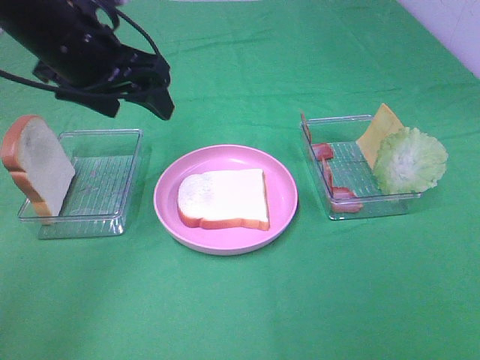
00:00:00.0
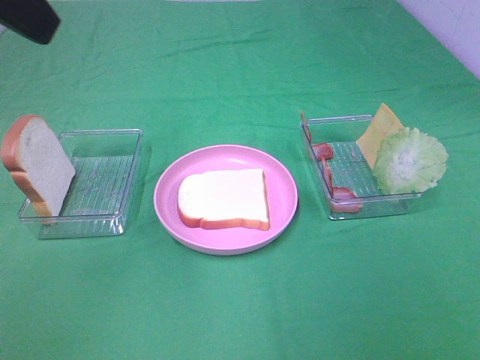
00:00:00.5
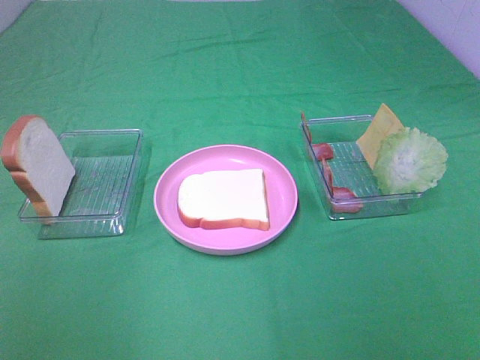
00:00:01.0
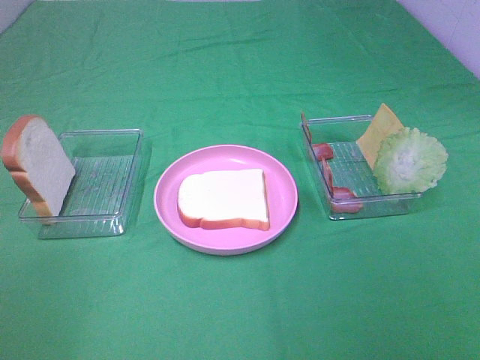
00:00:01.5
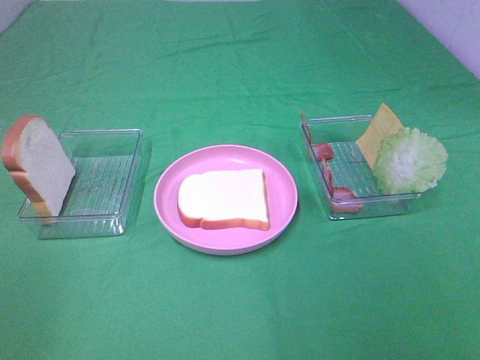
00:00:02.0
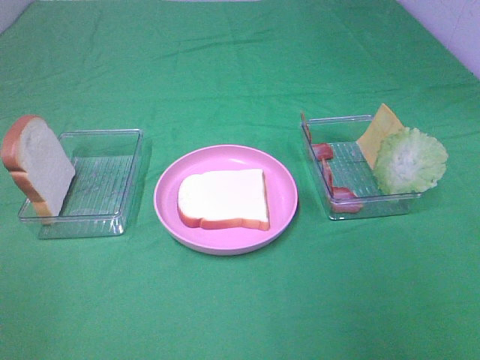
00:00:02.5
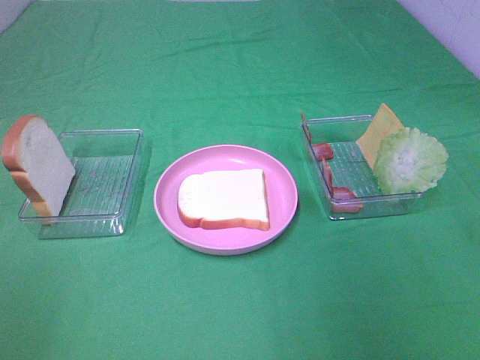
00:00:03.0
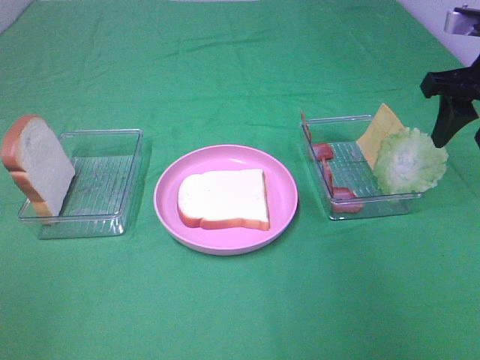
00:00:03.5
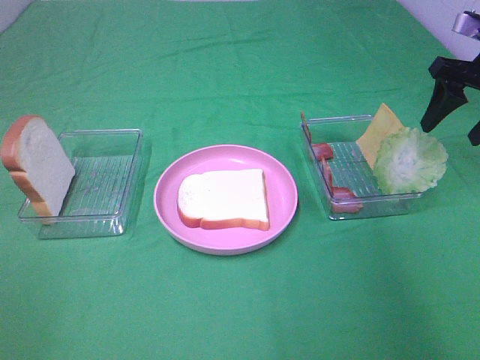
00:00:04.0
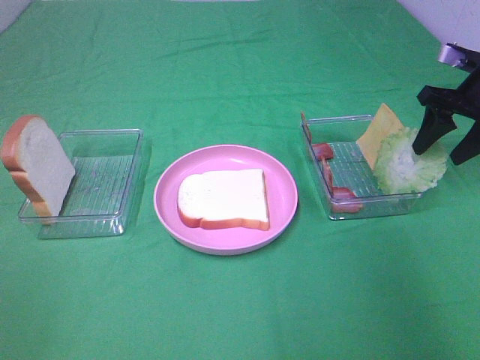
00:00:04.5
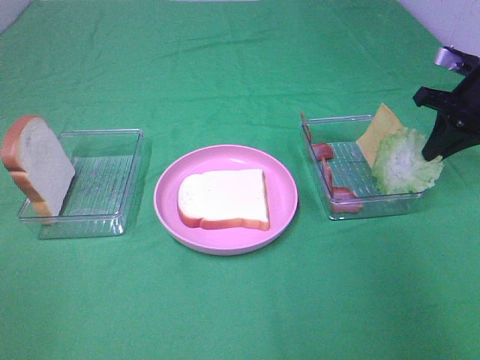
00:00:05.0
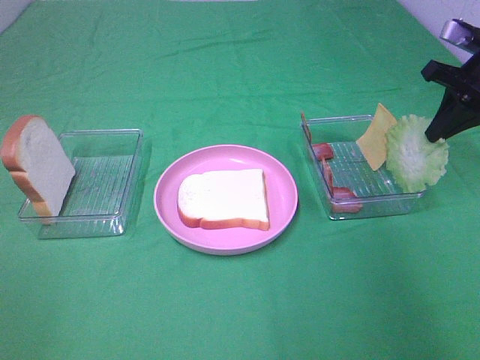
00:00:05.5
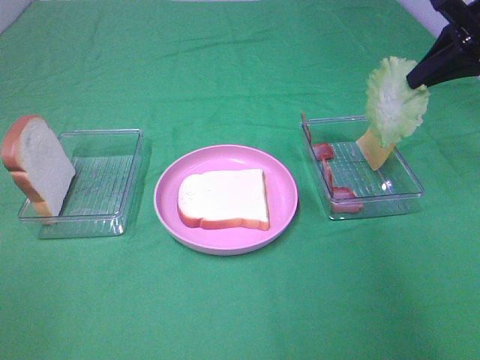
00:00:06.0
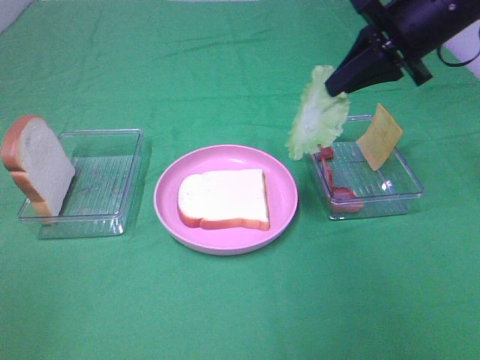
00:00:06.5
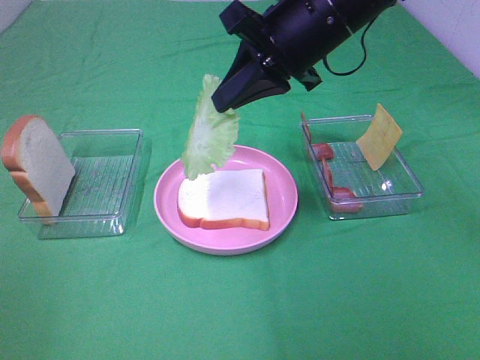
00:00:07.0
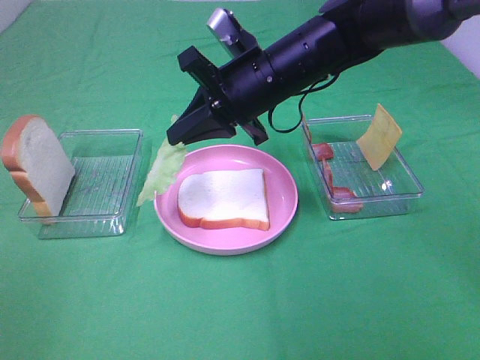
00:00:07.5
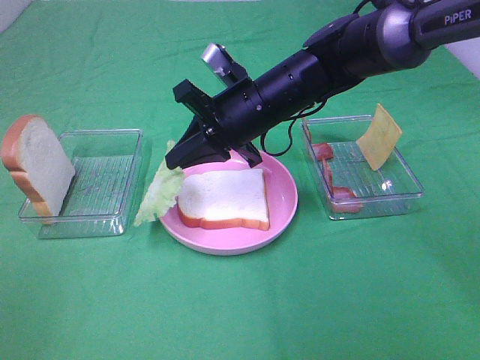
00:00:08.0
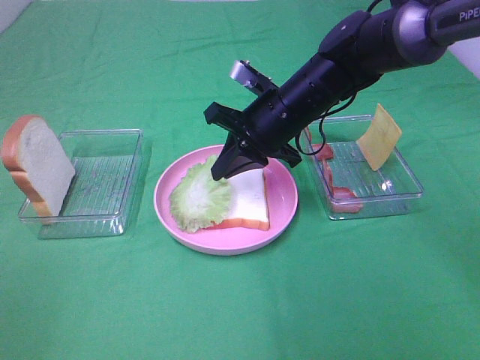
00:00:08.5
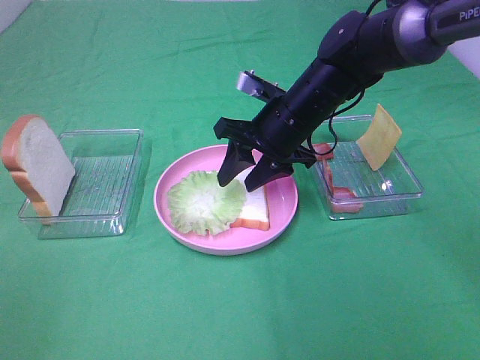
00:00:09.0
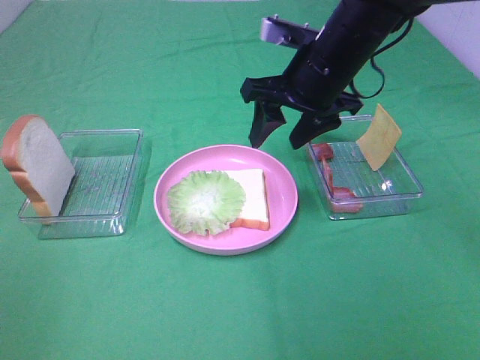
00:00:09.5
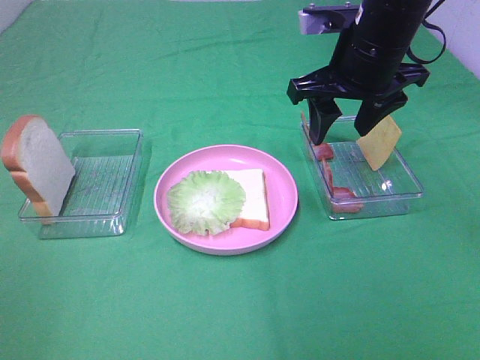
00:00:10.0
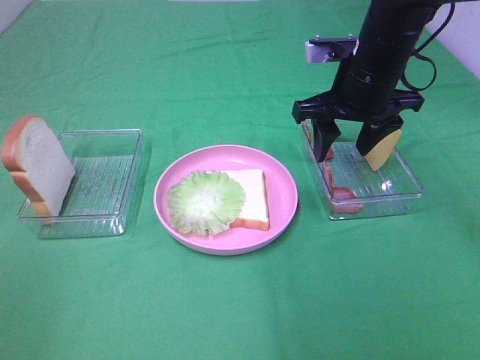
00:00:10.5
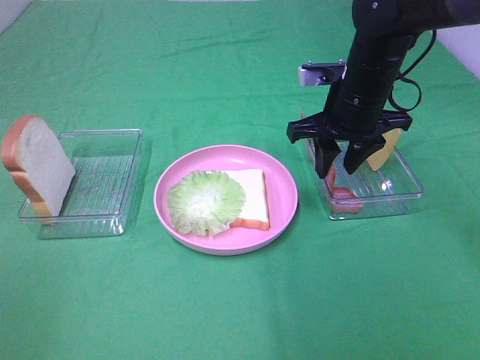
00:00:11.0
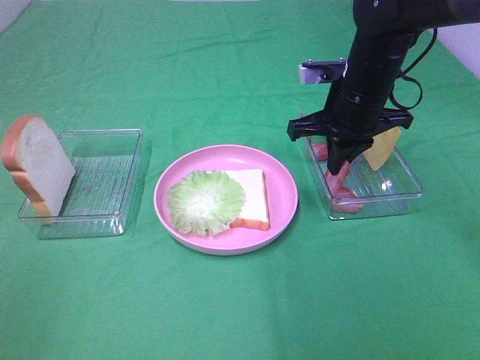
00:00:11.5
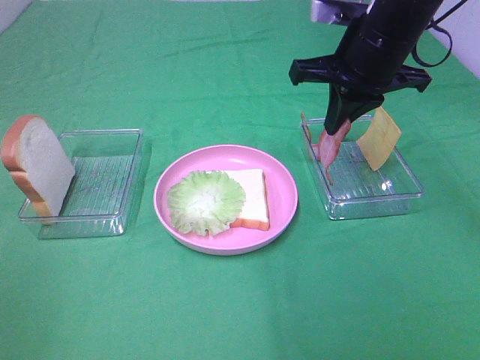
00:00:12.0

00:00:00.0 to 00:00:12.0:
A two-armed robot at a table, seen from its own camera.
Task of the whole recording: Make sandwiches.
Step, 00:00:00.0 to 00:00:05.0: Right hand:grab the lettuce slice.
Step, 00:00:05.5 to 00:00:09.0: Right hand:place the lettuce slice on the bread slice.
Step, 00:00:09.5 to 00:00:11.0: Right hand:grab the bacon.
00:00:00.0 to 00:00:02.0: The left gripper travels backward and to the left by roughly 35 cm.
00:00:02.0 to 00:00:04.0: The right gripper heads forward, covering roughly 40 cm.
00:00:04.0 to 00:00:06.0: The right gripper goes some 5 cm upward, and closes.
00:00:06.0 to 00:00:08.0: The right gripper is displaced to the left and downward by approximately 30 cm.
00:00:08.0 to 00:00:10.0: The right gripper goes approximately 15 cm to the right and upward, and opens its fingers.
00:00:10.0 to 00:00:12.0: The right gripper moves about 10 cm downward and comes back, and closes up.

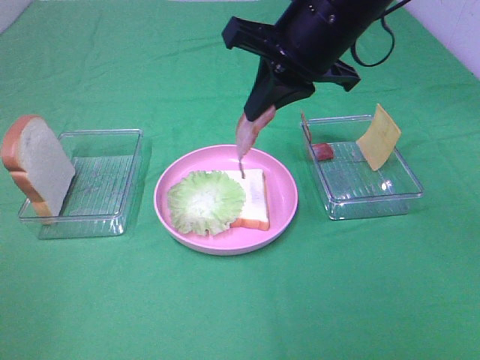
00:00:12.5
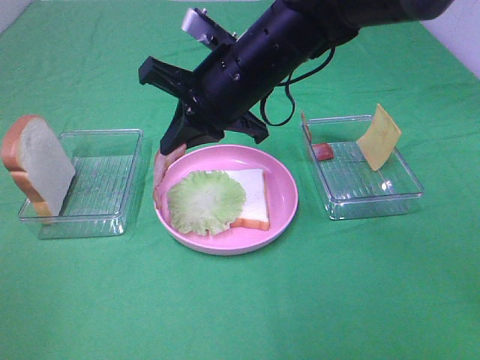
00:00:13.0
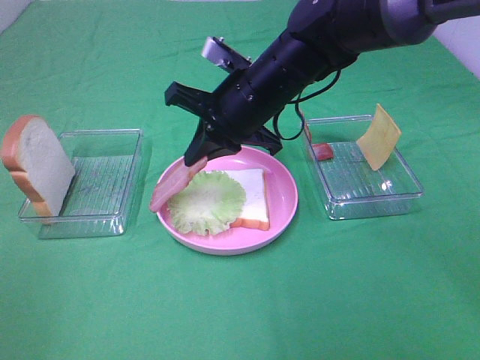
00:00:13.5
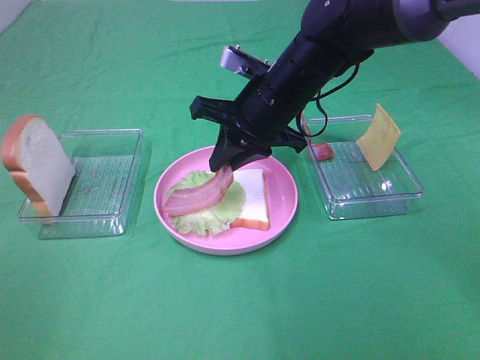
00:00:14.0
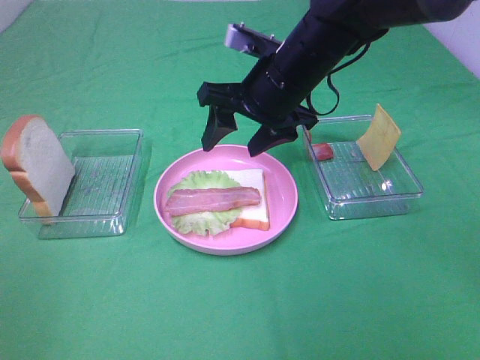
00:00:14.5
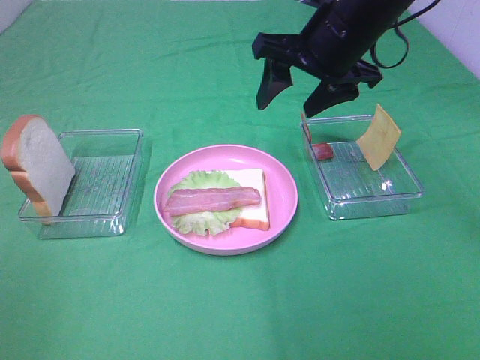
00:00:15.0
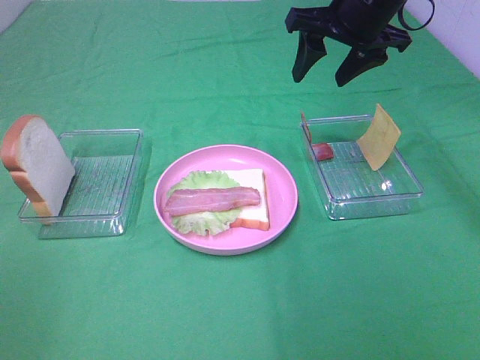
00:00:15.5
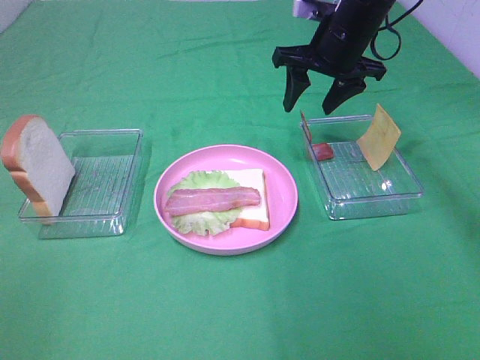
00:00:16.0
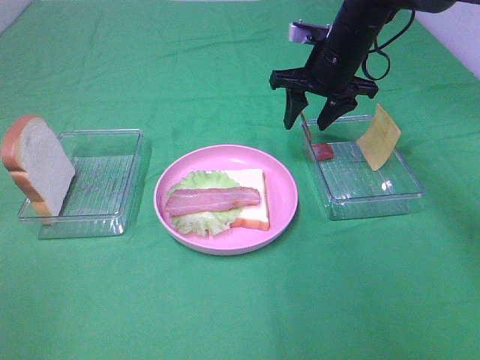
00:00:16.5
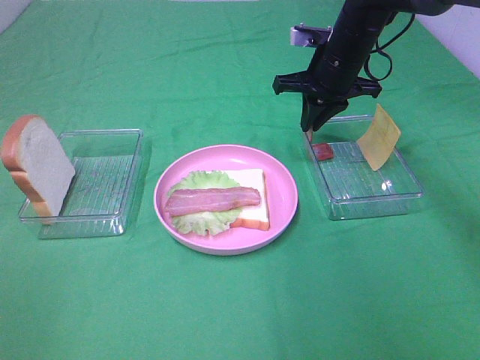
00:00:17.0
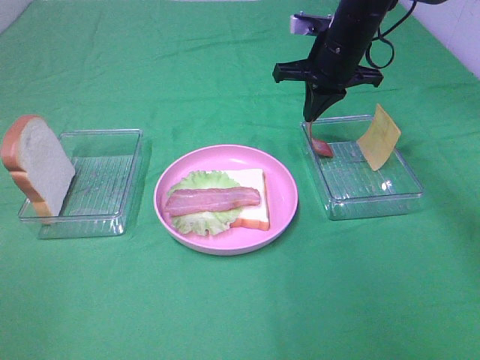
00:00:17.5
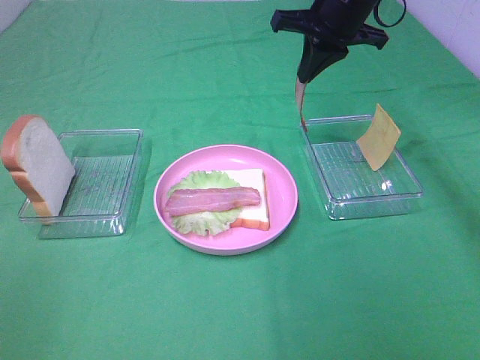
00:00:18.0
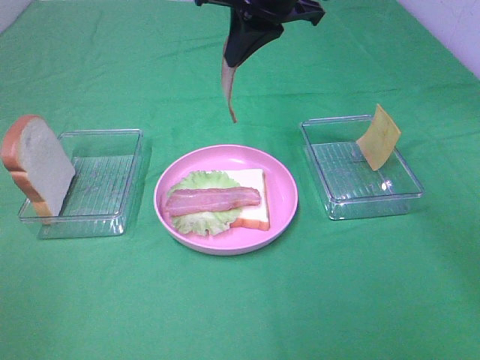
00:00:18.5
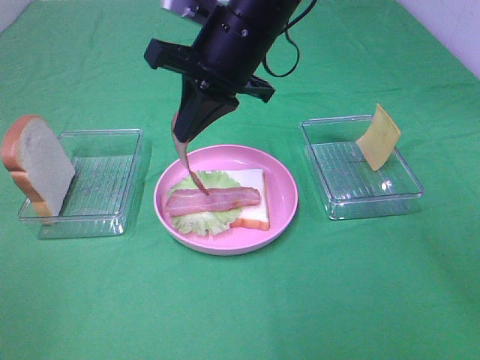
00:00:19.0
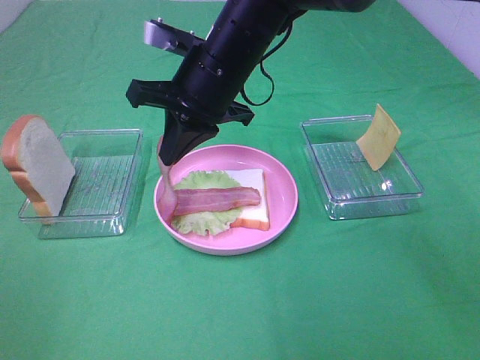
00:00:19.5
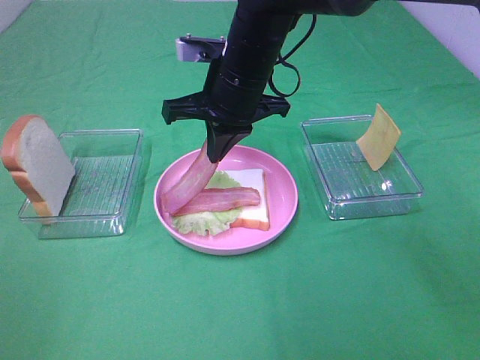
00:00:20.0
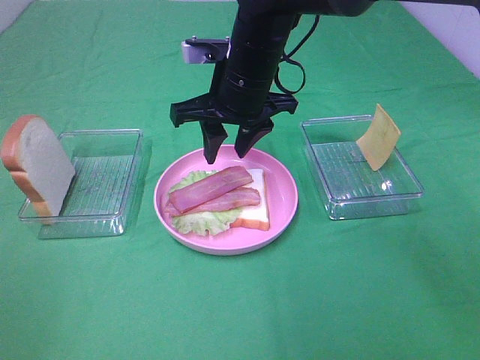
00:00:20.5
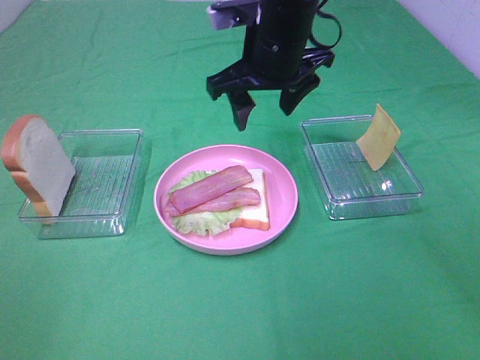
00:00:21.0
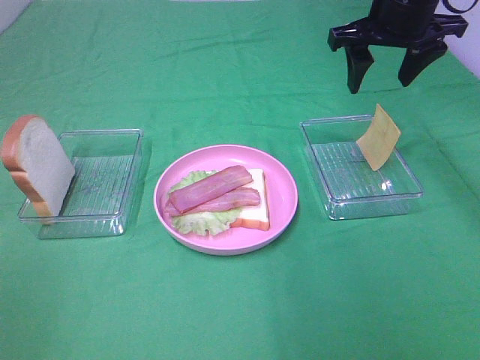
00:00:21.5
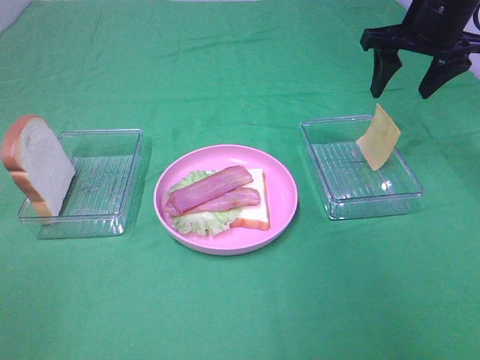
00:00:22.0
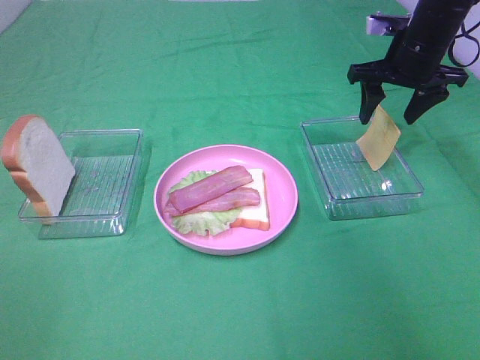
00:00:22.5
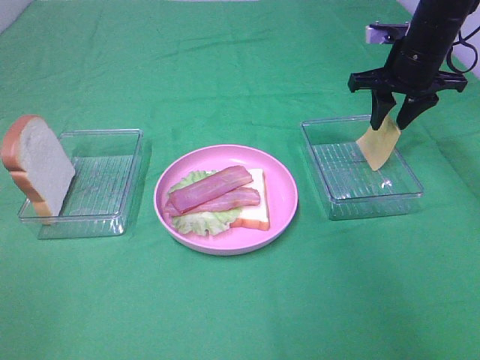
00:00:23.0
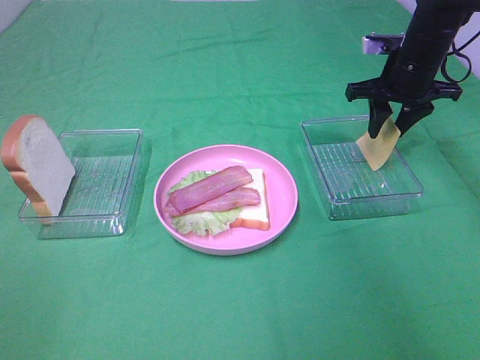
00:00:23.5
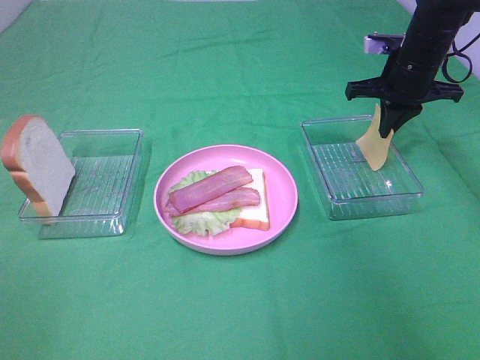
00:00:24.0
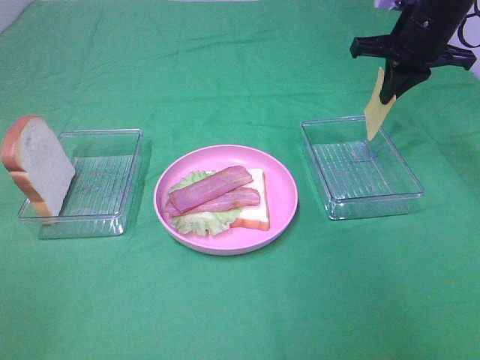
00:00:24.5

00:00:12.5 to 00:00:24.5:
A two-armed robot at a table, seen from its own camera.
Task of the whole recording: Make sandwiches.
Step, 00:00:12.5 to 00:00:14.5: Right hand:place bacon on lettuce slice.
Step, 00:00:15.0 to 00:00:17.0: Right hand:grab the bacon.
Step, 00:00:17.5 to 00:00:20.5: Right hand:place bacon on bacon.
Step, 00:00:21.0 to 00:00:24.0: Right hand:grab the cheese slice.
00:00:12.5 to 00:00:14.5: The right gripper shifts some 5 cm downward, and opens up.
00:00:14.5 to 00:00:16.5: The right gripper moves forward and to the right, approximately 15 cm.
00:00:16.5 to 00:00:18.5: The right gripper is displaced upward, to the left and backward by approximately 15 cm, and closes up.
00:00:18.5 to 00:00:20.5: The right gripper shifts approximately 10 cm downward, and opens up.
00:00:20.5 to 00:00:22.5: The right gripper goes roughly 25 cm to the right.
00:00:22.5 to 00:00:24.5: The right gripper closes.

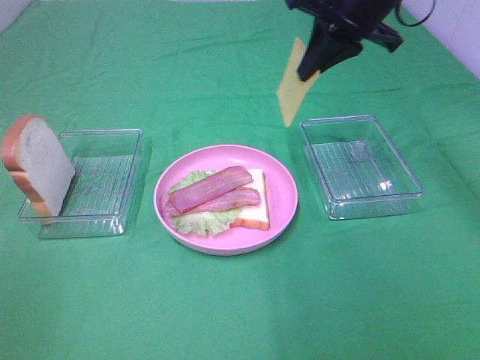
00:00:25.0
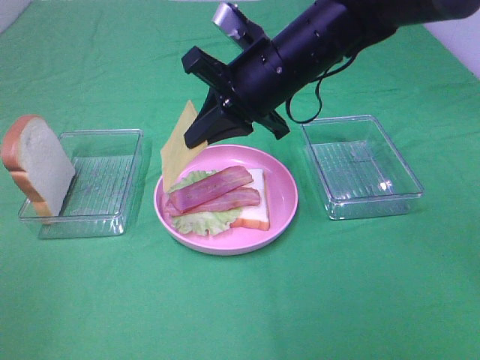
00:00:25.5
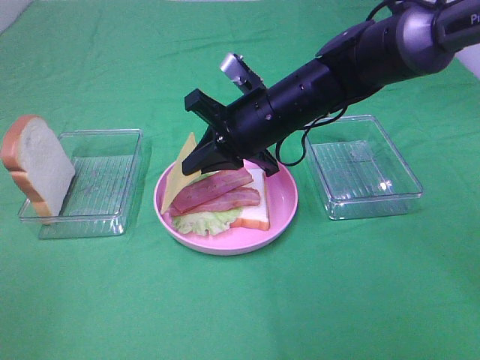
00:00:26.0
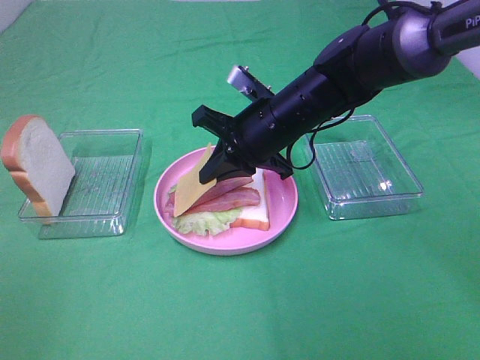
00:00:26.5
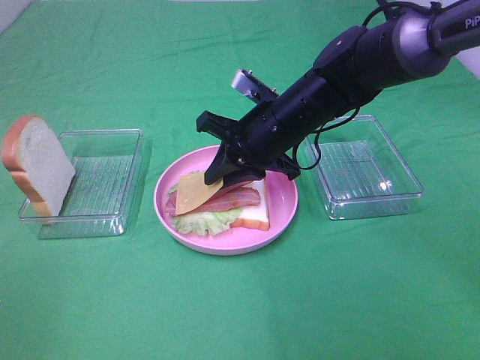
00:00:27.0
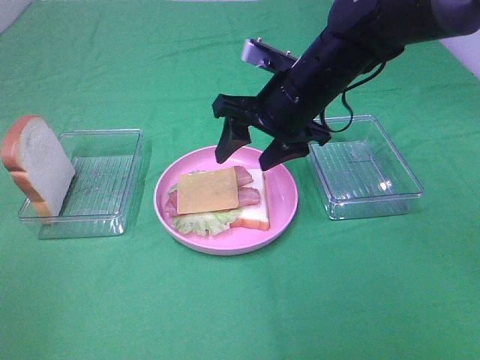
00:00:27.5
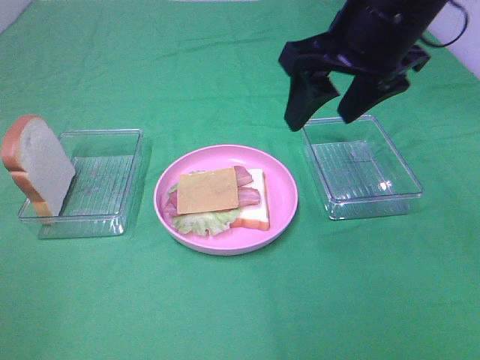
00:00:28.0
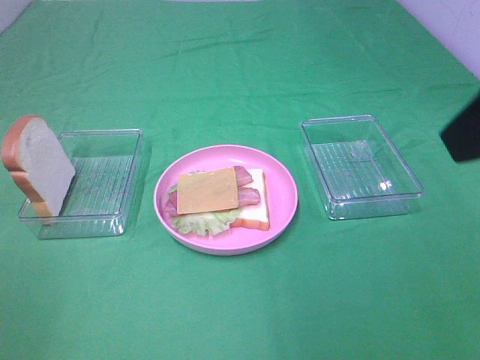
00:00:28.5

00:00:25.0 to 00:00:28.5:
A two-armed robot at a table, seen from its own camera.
Task of the whole recording: Make sandwiches.
Step, 00:00:25.0 to 00:00:27.5: Right hand:place the cheese slice on top of the bacon.
00:00:25.0 to 00:00:27.0: The right gripper goes roughly 15 cm downward and to the left.
00:00:27.0 to 00:00:28.5: The right gripper is displaced upward, backward and to the right by about 35 cm, and opens its fingers.
